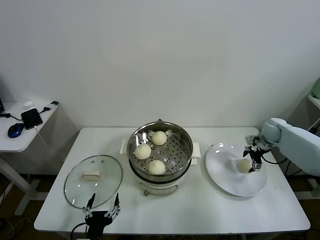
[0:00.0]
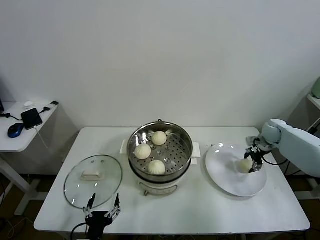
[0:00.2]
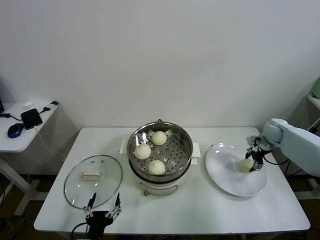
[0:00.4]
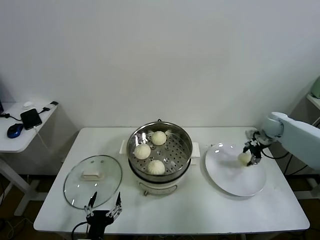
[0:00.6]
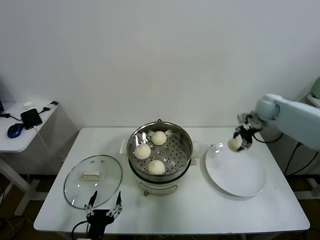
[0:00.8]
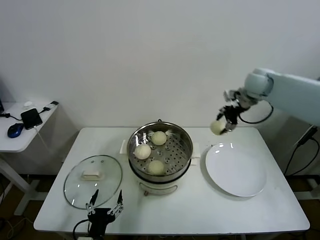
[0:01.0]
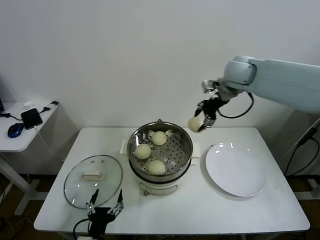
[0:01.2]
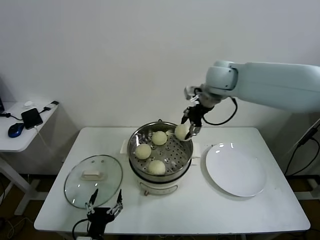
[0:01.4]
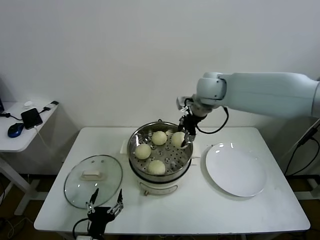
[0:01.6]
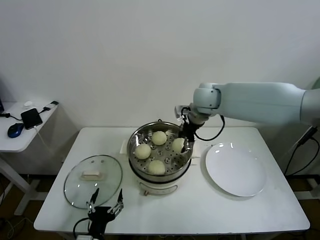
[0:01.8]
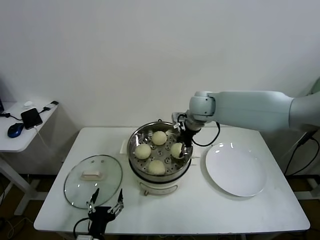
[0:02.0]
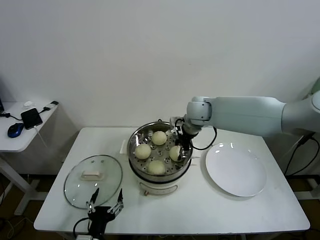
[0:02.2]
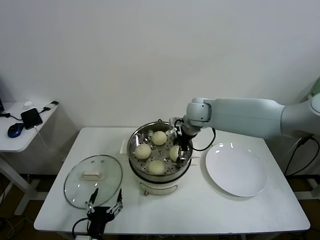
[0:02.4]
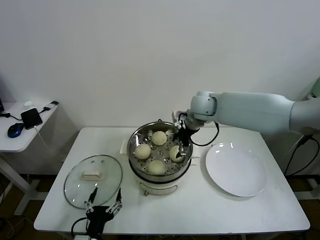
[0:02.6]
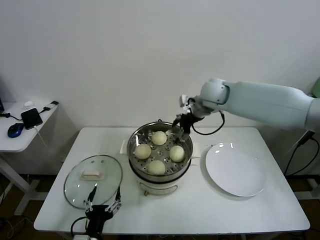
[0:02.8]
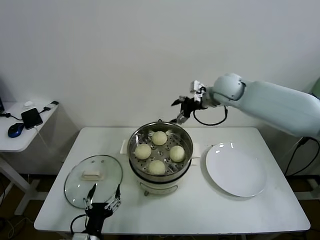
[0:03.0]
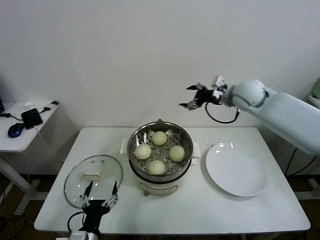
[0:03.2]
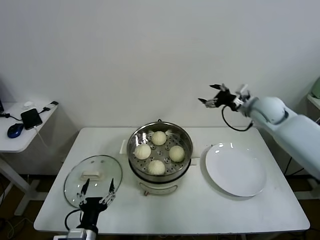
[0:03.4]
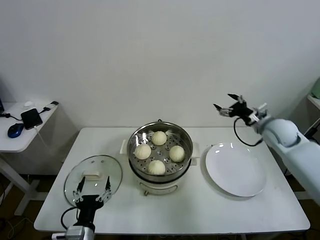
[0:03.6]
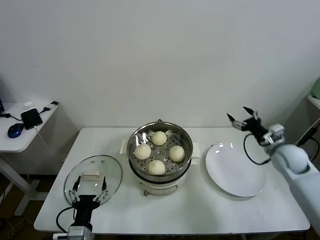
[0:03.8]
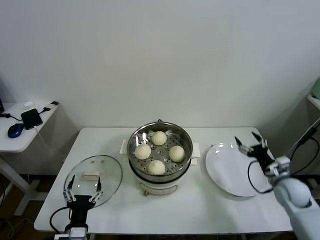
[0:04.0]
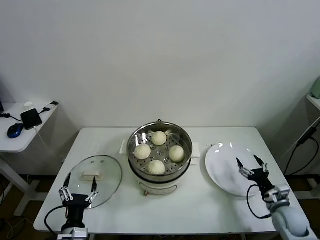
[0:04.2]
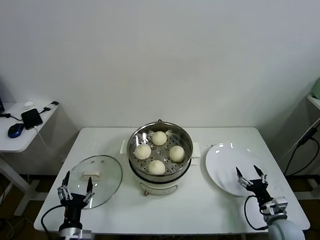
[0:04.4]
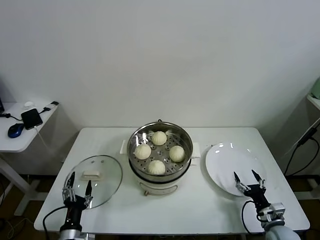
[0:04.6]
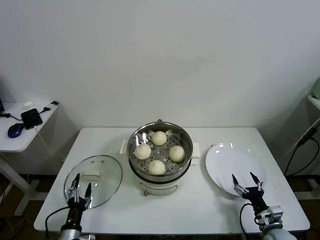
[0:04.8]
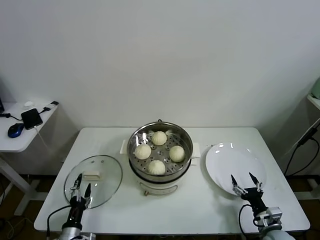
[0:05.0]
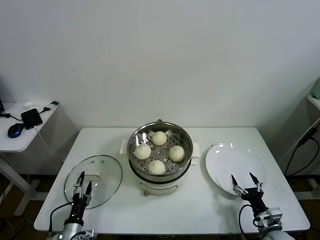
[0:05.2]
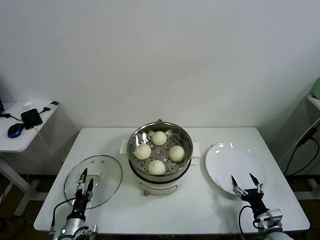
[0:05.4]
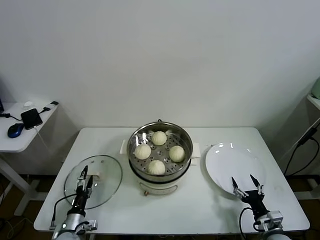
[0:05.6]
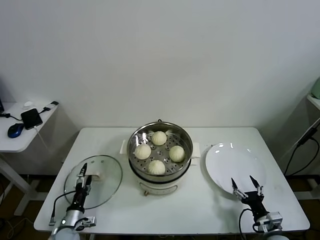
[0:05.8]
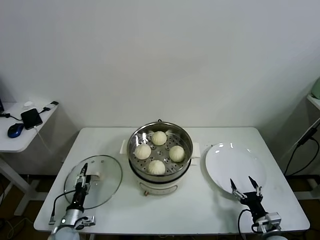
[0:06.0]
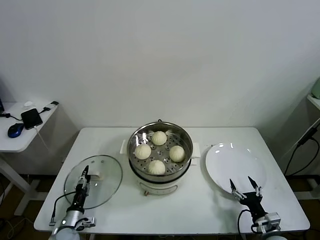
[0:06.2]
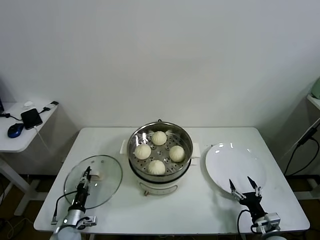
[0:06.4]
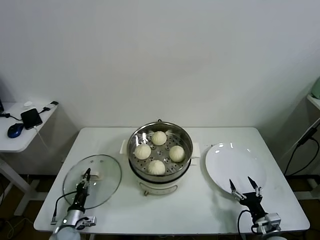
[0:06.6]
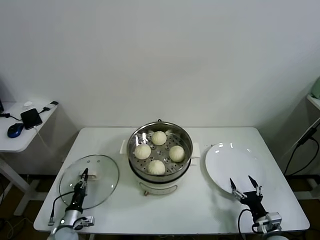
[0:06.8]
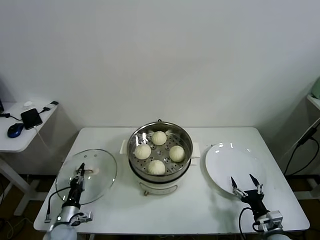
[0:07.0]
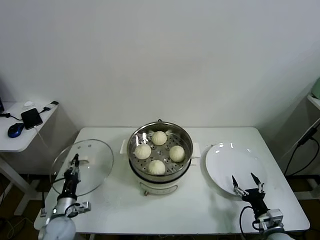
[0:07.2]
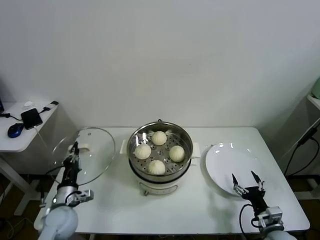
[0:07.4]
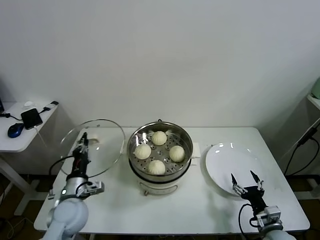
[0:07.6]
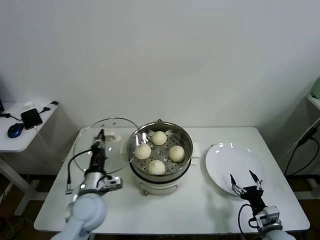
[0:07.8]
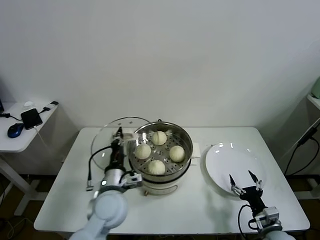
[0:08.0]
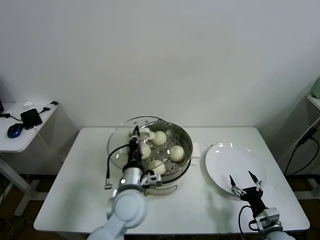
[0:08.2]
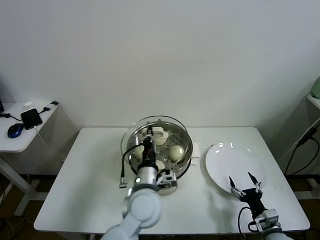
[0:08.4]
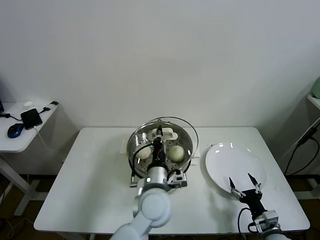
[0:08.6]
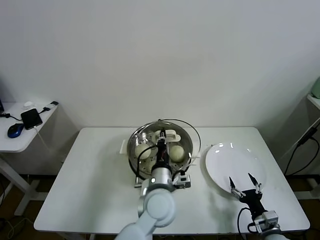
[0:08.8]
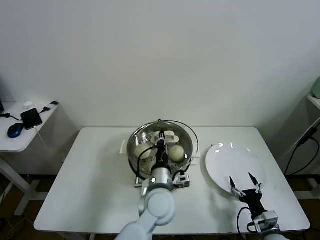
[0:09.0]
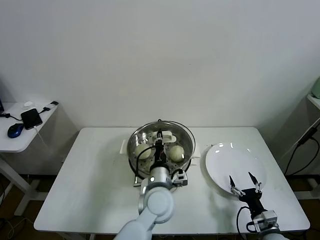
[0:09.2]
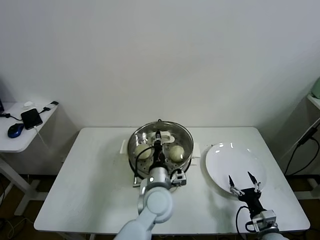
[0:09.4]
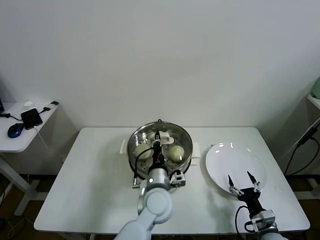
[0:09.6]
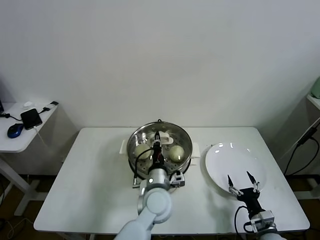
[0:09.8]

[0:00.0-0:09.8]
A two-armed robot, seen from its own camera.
Task of the whole recording: take steamed baozi put them in steamer.
Step, 0:00.4 to 0:02.4: Place the baozi on the steamer with right gripper.
Step, 0:02.6 to 0:06.4: Grasp the pot lid with left gripper.
0:00.0 to 0:01.4: The right gripper heads to the left and upward, covering some 35 cm, and closes.
0:01.4 to 0:02.8: The right gripper shifts approximately 5 cm downward, and opens up.
0:02.8 to 0:04.2: The right gripper goes roughly 50 cm downward, backward and to the right; the left gripper changes place by roughly 5 cm.
0:04.2 to 0:05.6: The right gripper is displaced backward by roughly 10 cm; the left gripper moves downward, to the left and forward, roughly 15 cm.
0:05.6 to 0:07.0: The left gripper closes its fingers.
0:07.0 to 0:08.4: The left gripper travels to the right and upward by approximately 40 cm.
0:08.4 to 0:09.8: The left gripper ends up roughly 5 cm from where it was.

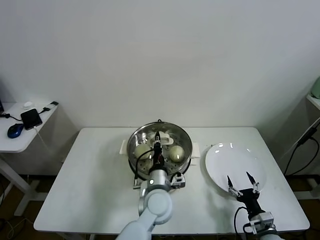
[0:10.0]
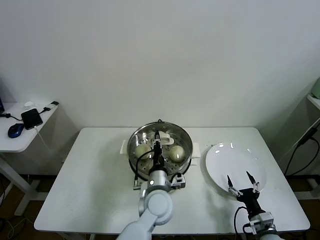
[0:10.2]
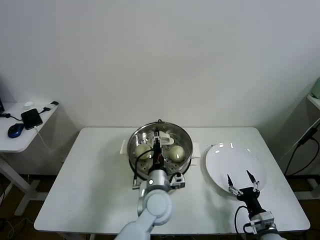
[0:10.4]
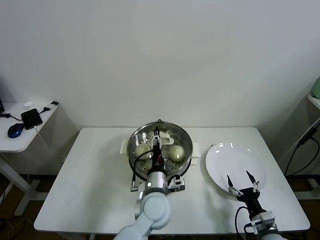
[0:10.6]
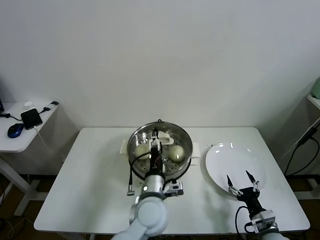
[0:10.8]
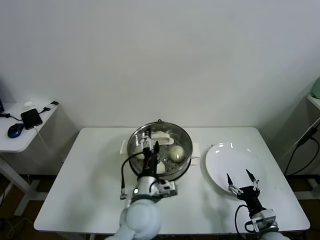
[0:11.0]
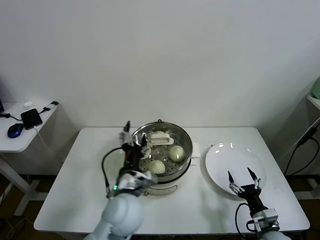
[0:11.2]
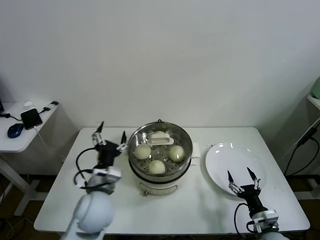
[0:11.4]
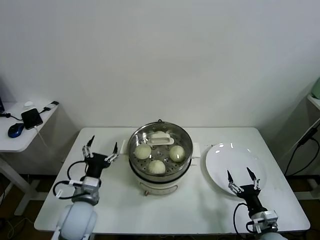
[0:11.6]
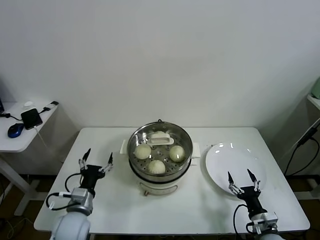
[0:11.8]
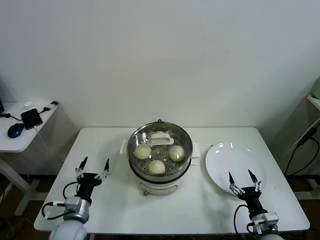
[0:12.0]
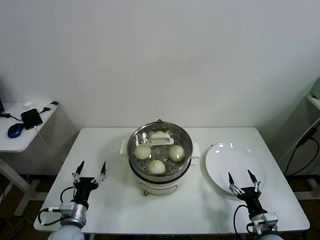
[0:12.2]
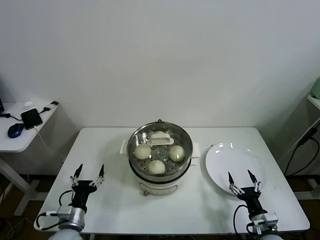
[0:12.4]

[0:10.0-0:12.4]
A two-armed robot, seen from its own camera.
Task of the whole recording: take steamed baozi put them in steamer.
0:10.0 to 0:11.2: The left gripper shifts roughly 10 cm to the left and upward, and opens.
0:11.2 to 0:12.4: The left gripper is displaced to the left and downward by some 25 cm.
